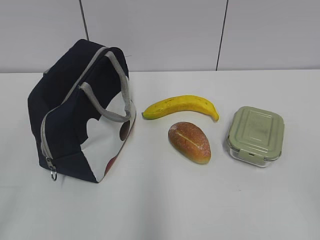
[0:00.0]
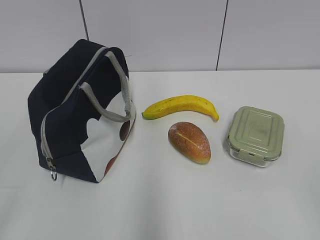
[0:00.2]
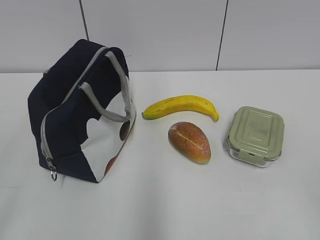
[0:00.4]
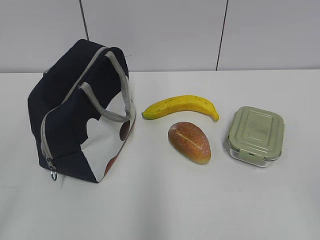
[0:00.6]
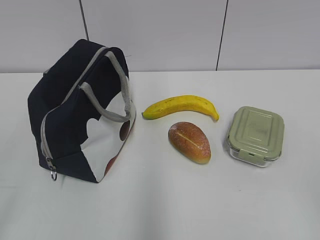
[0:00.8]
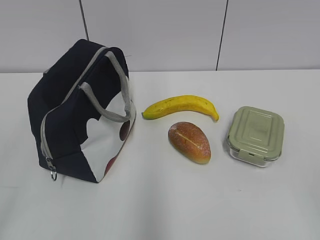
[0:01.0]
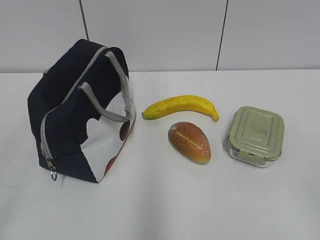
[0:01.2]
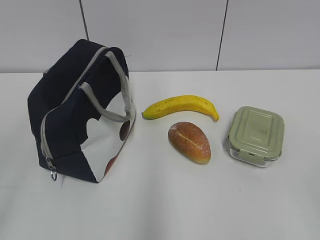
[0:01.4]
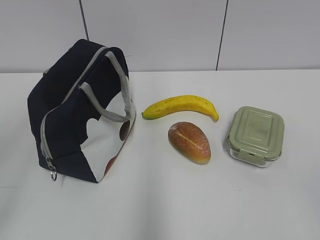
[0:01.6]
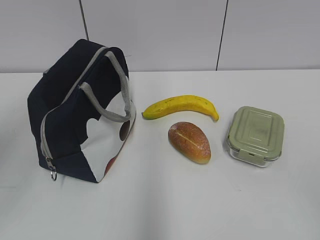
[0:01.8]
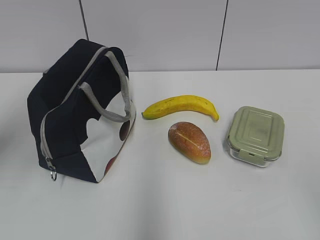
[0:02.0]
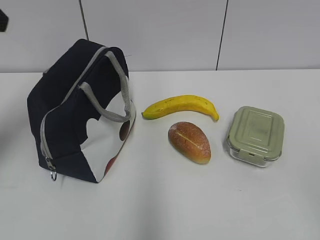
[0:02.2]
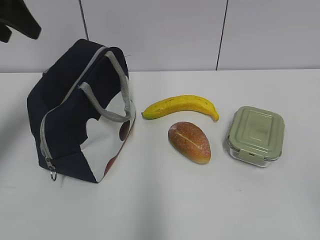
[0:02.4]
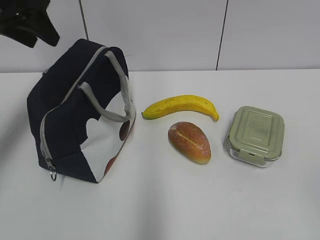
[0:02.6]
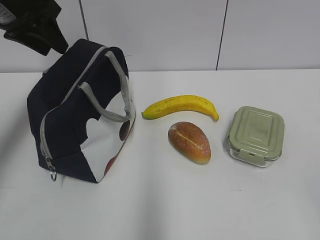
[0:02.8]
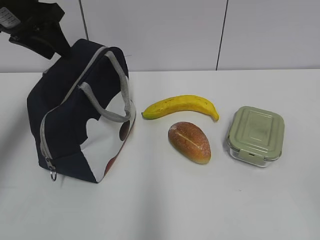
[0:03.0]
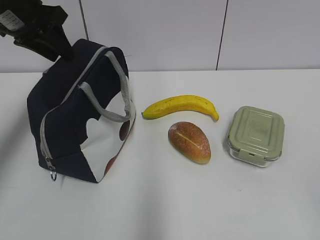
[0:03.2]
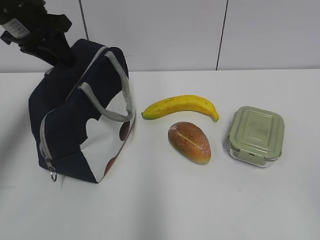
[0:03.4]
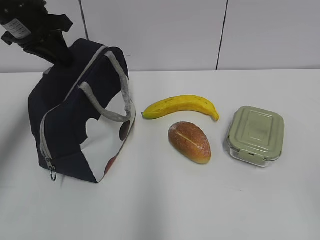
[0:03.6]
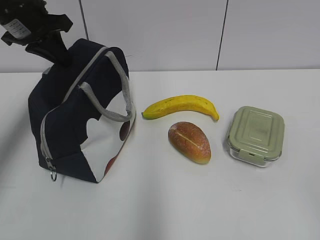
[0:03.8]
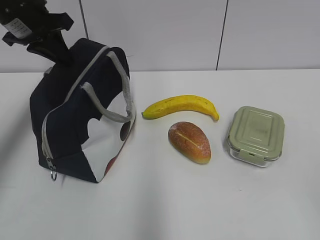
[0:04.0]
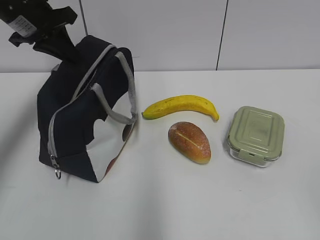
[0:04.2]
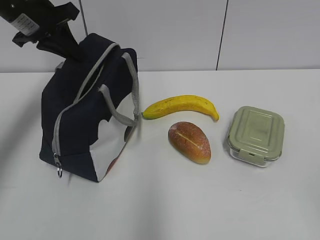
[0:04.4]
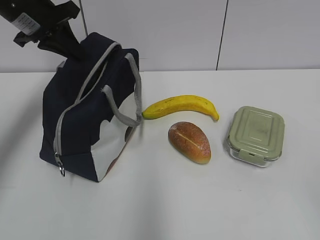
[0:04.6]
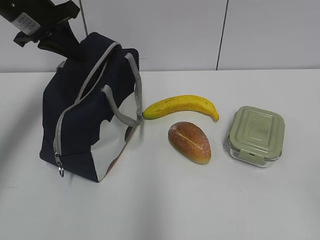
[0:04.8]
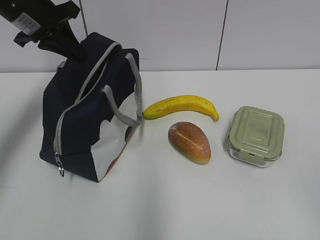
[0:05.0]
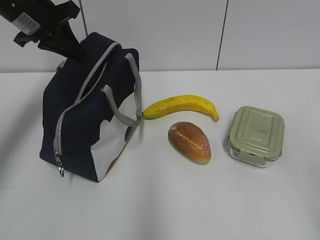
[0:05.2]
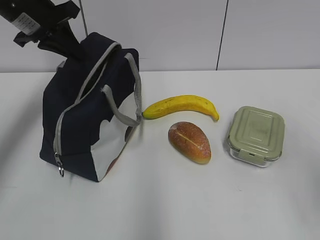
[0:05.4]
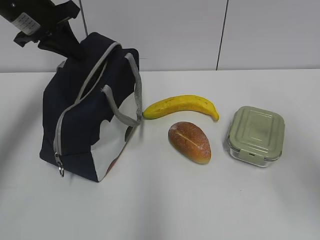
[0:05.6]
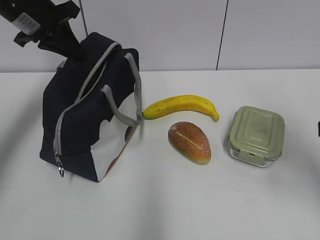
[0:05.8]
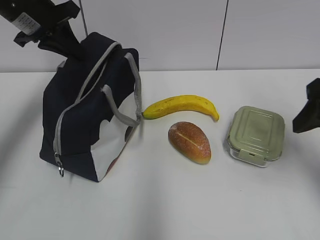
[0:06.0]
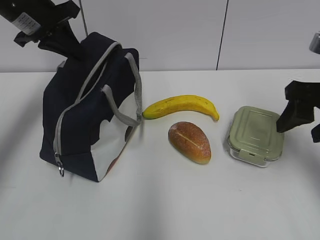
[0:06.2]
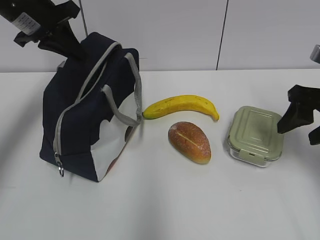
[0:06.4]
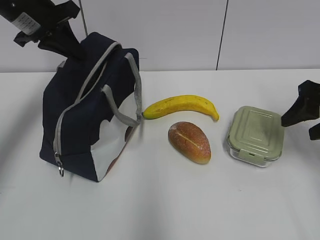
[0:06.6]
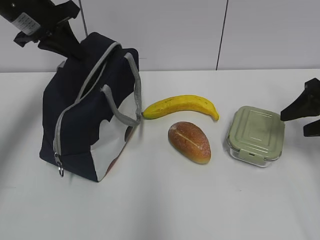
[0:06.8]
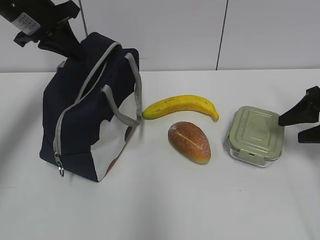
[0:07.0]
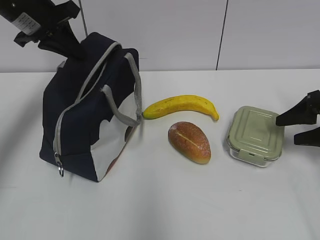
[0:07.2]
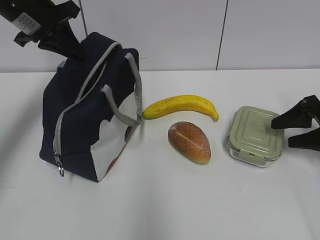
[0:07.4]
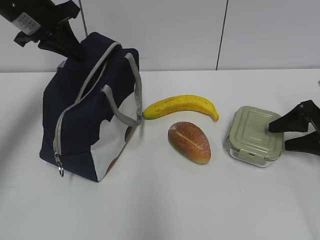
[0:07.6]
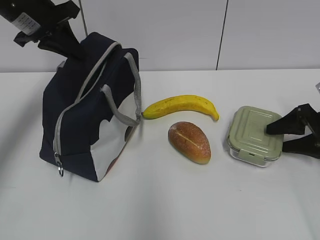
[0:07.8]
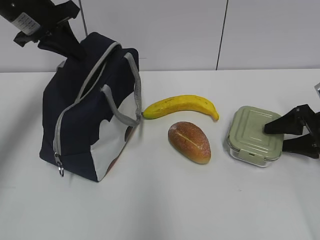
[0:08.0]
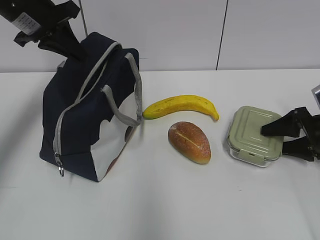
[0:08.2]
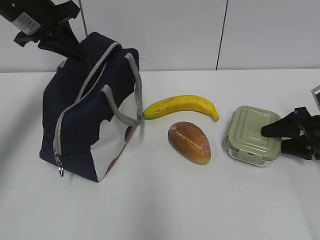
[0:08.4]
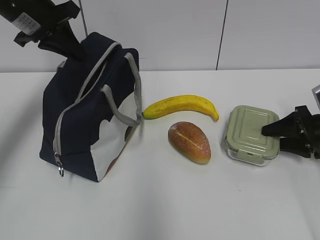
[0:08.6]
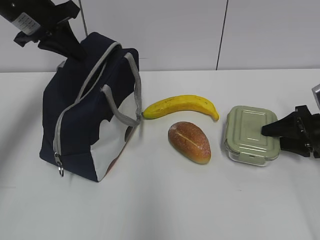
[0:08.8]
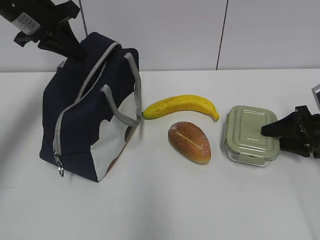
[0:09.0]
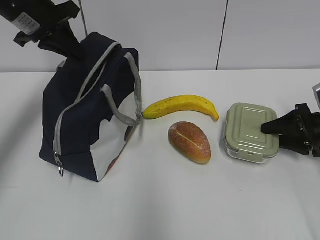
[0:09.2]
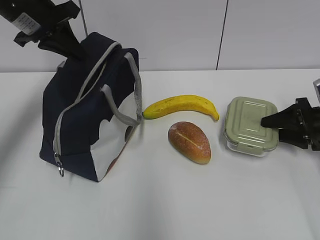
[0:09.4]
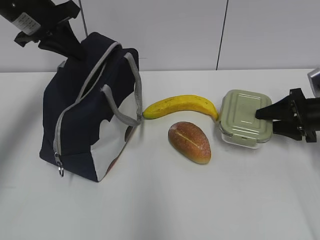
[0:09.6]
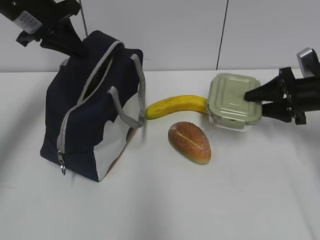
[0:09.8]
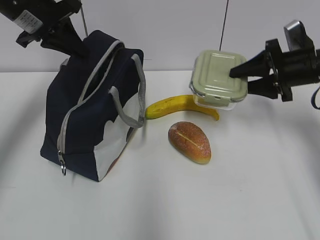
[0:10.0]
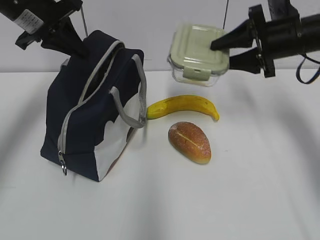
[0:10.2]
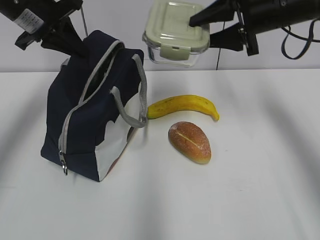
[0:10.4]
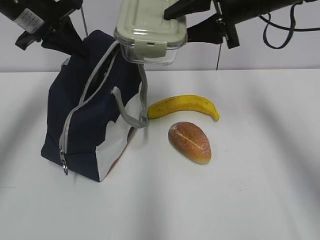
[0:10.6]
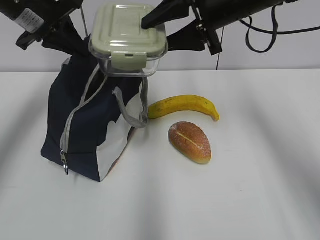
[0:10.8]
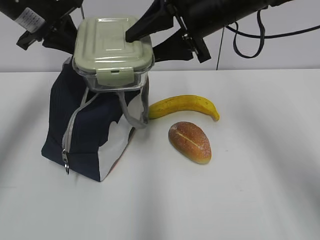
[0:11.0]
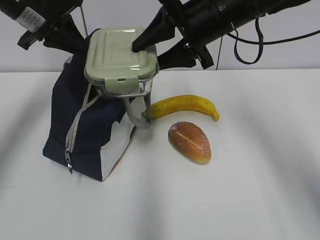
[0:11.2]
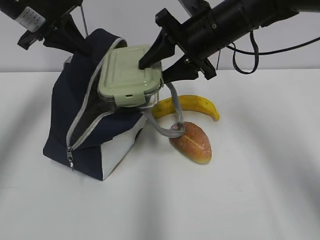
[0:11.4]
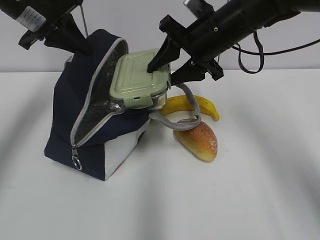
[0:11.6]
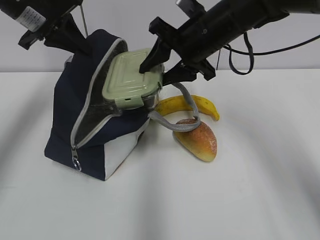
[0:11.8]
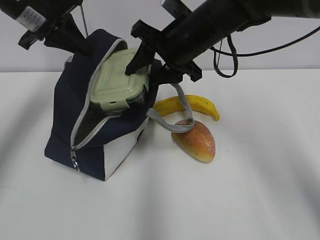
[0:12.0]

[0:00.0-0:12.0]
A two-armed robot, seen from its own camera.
Step, 0:00.0 to 0:08.8: Grab the lunch box with your right hand.
0:01.6 to 0:03.0: The left gripper heads forward, covering some 35 cm, and closes.
0:03.0 to 0:04.4: The left gripper closes.
0:04.4 to 0:06.0: The right gripper goes approximately 25 cm forward.
0:06.0 to 0:07.6: The right gripper moves downward, forward and to the right, roughly 20 cm.
0:07.6 to 0:09.0: There are only small adjustments of the grippers.
0:09.0 to 0:10.4: The right gripper is displaced upward and to the left by about 25 cm.
0:10.4 to 0:12.0: The right gripper moves to the left, roughly 15 cm.

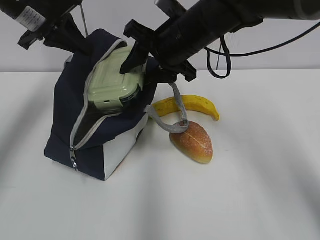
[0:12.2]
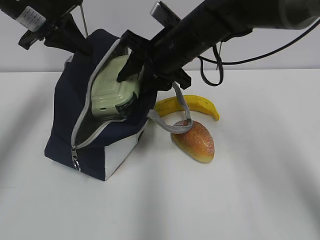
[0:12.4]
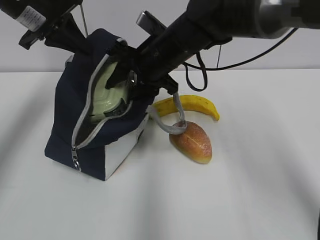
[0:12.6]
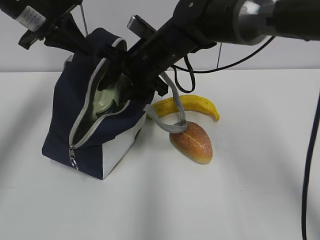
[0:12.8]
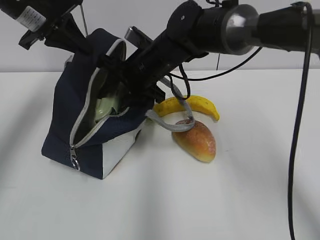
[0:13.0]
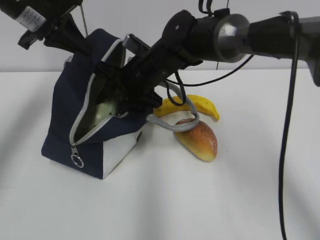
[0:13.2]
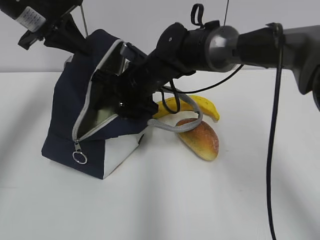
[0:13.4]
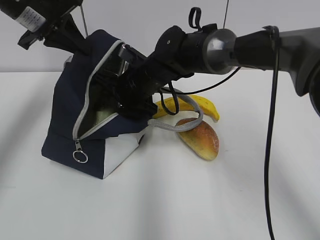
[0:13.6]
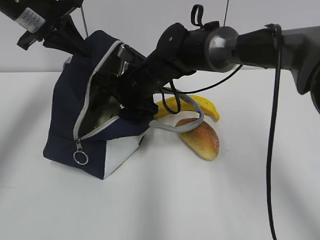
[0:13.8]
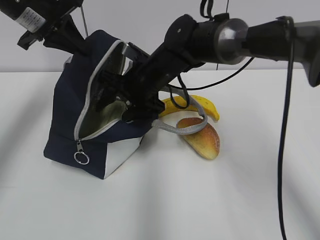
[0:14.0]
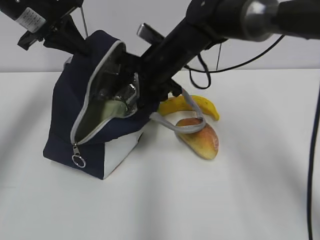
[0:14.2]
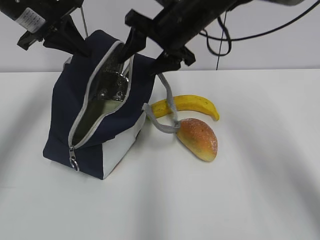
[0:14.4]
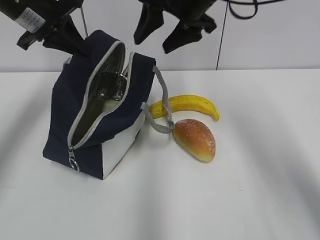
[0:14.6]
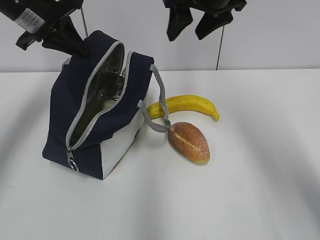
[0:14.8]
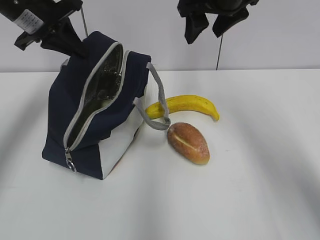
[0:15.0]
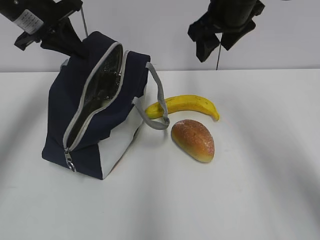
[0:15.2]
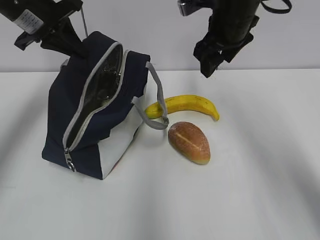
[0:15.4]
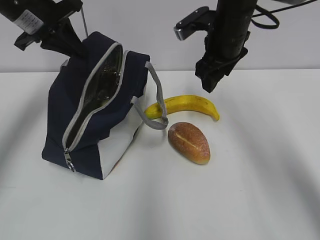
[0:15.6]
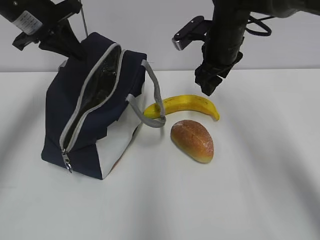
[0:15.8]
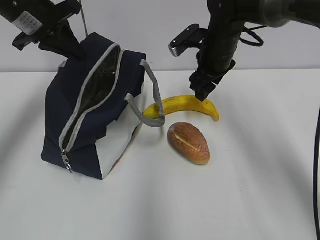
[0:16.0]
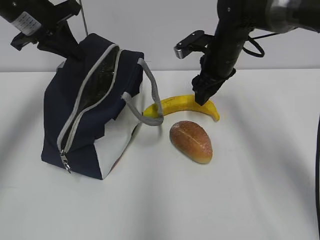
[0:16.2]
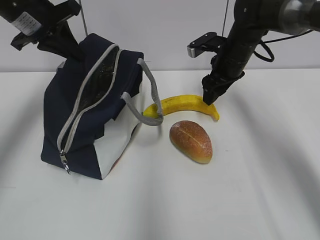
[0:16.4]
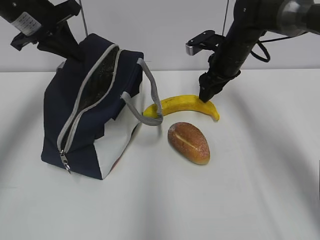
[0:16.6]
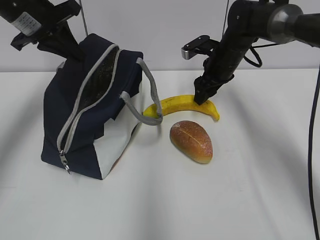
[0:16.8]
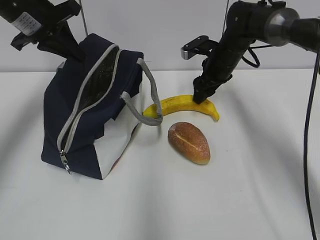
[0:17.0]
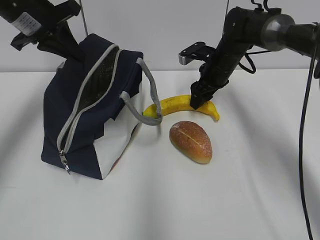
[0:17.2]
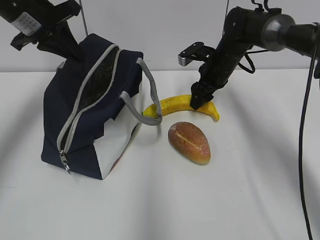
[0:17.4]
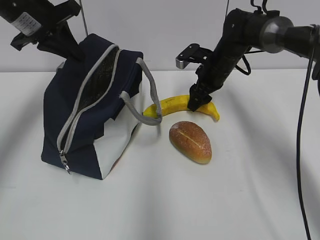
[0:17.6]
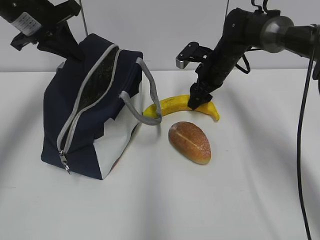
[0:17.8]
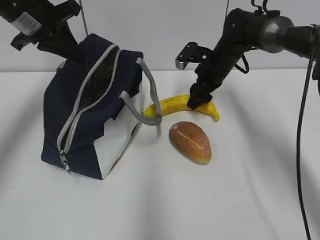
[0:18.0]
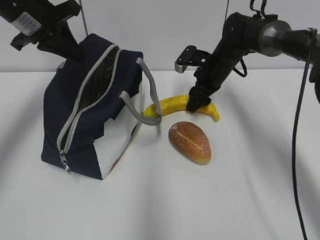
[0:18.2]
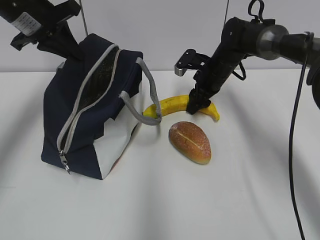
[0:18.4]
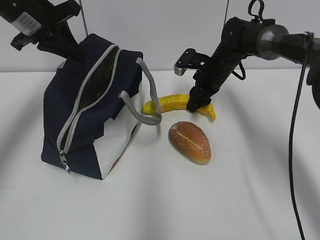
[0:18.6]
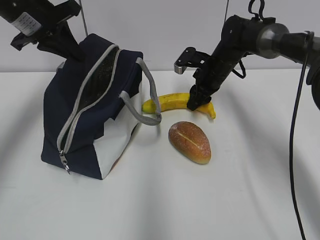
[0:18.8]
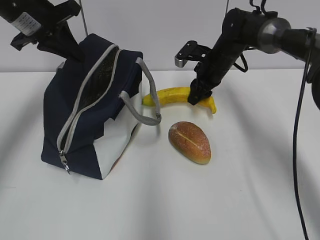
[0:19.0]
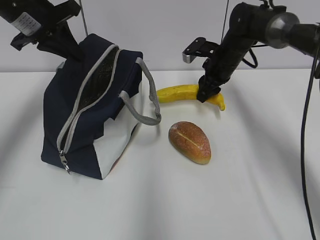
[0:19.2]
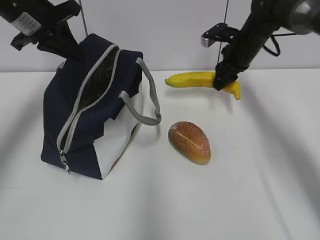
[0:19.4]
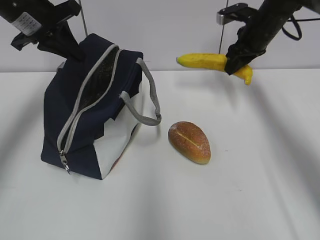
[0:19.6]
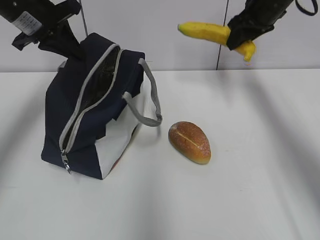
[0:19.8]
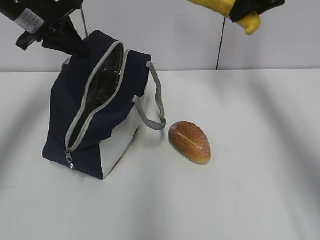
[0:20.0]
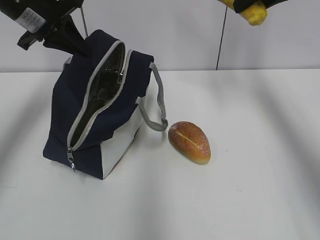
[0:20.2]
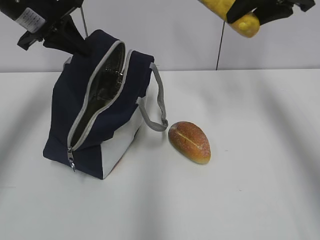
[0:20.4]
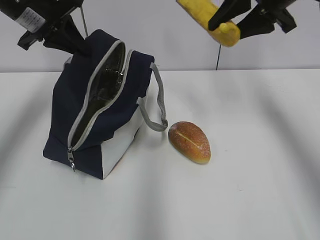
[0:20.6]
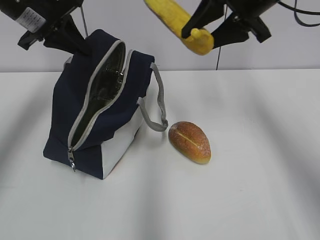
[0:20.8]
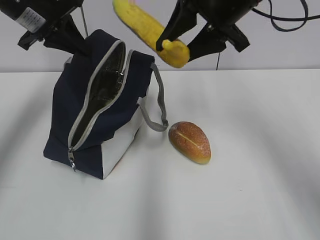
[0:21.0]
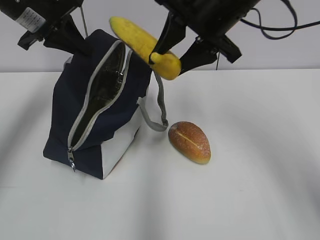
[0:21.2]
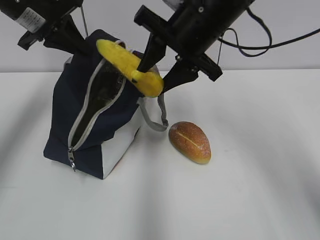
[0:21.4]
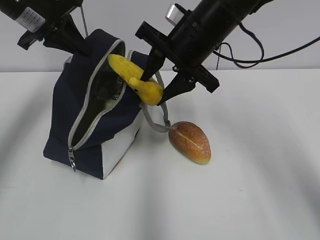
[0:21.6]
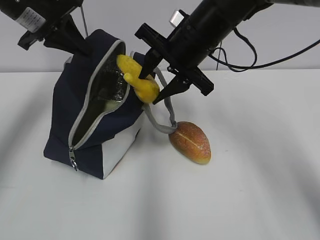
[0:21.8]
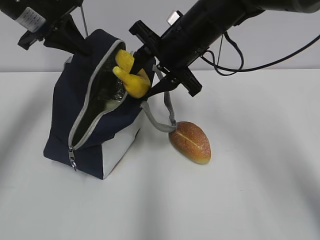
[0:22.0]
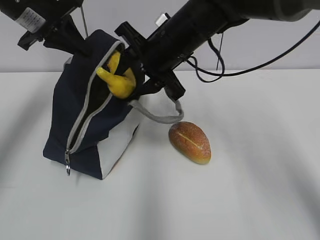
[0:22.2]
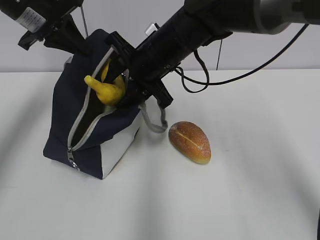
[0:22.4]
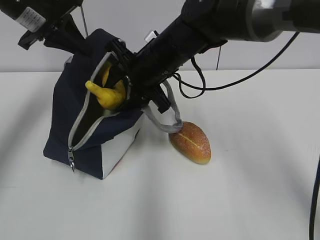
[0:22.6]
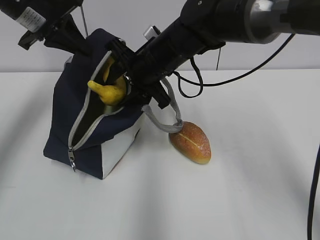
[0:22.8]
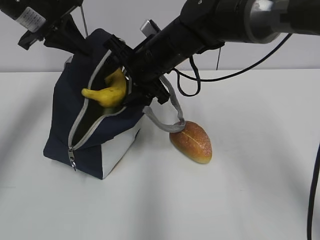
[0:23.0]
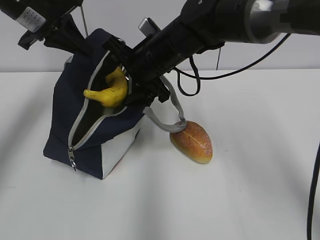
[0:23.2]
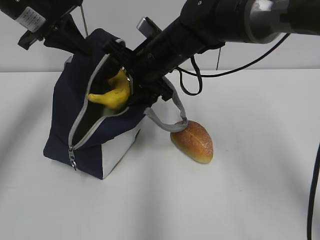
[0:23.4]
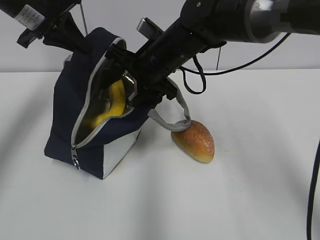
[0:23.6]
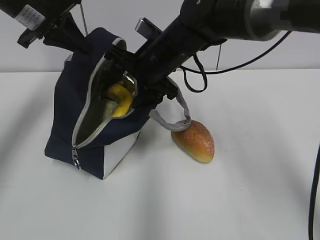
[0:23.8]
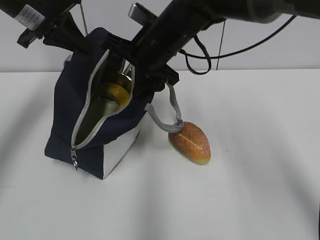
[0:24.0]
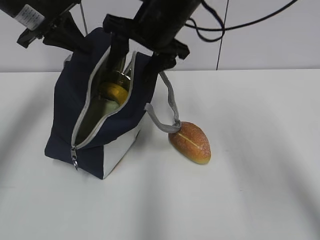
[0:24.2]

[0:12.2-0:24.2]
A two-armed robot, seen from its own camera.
Step, 0:12.2 to 0:14.0: Place it into the bag with your right hand.
Step, 0:14.2 to 0:18.6: Grab the banana with your right hand.
Step, 0:19.0 to 0:23.8: Place it into the bag with your right hand.
0:12.2 to 0:13.8: The right gripper shifts about 10 cm downward and to the left.
0:13.8 to 0:15.2: The right gripper goes roughly 20 cm upward and to the right.
0:15.2 to 0:16.6: The right gripper is displaced downward and forward by about 15 cm.
0:16.6 to 0:18.2: The right gripper ends up about 5 cm from where it was.
0:18.2 to 0:19.8: The right gripper is displaced upward and to the right by about 15 cm.
0:19.8 to 0:21.2: The right gripper moves backward and to the left, about 20 cm.
0:21.2 to 0:22.6: The right gripper heads downward and to the left, covering roughly 15 cm.
0:22.6 to 0:24.2: The right gripper goes approximately 5 cm upward, and opens its fingers.
